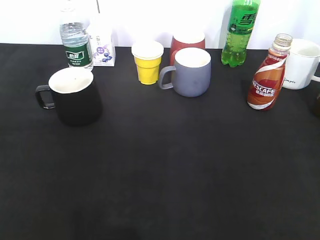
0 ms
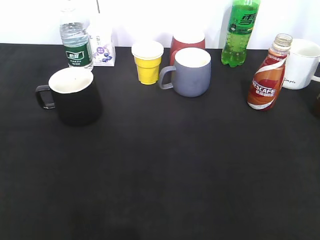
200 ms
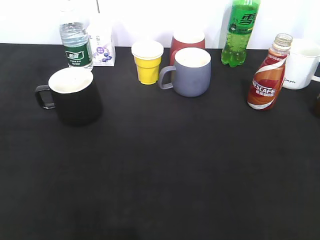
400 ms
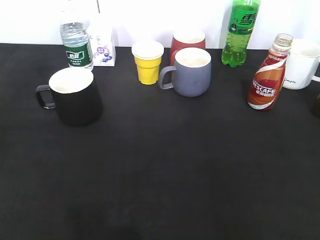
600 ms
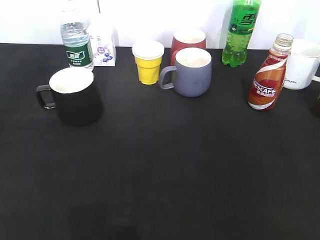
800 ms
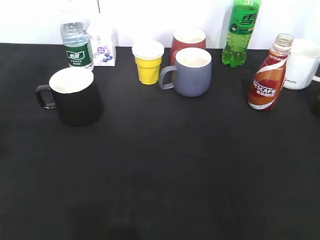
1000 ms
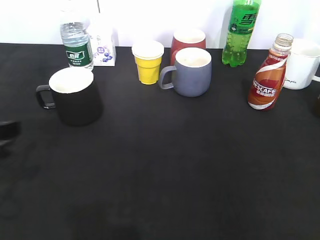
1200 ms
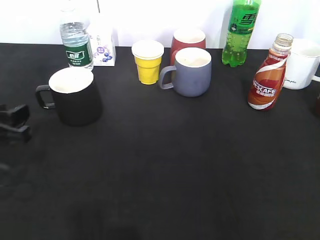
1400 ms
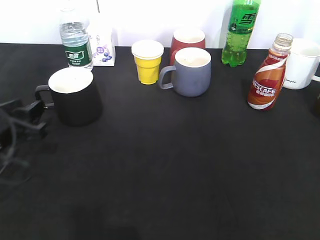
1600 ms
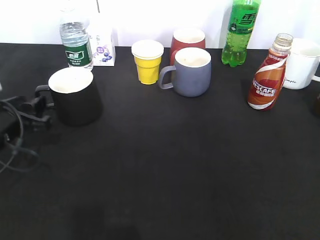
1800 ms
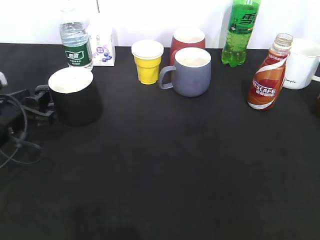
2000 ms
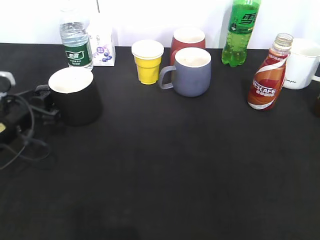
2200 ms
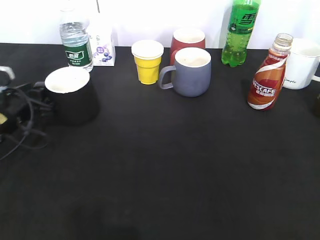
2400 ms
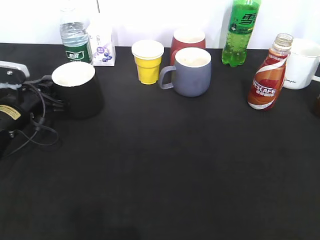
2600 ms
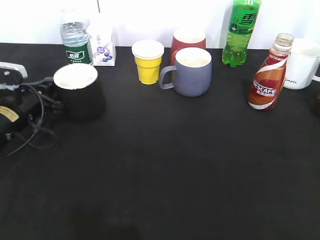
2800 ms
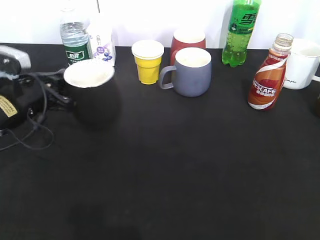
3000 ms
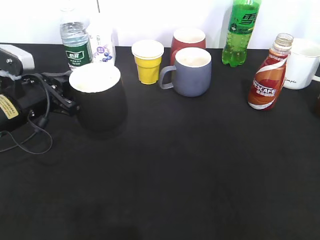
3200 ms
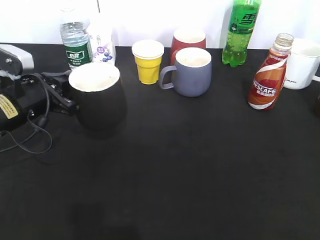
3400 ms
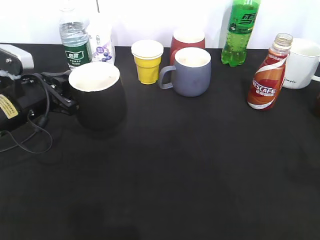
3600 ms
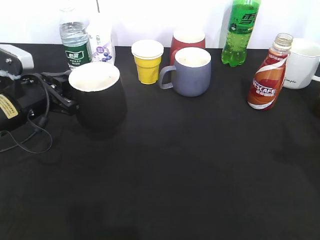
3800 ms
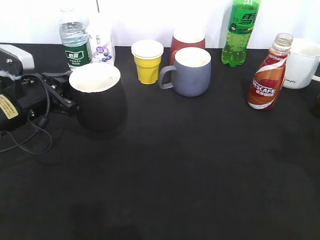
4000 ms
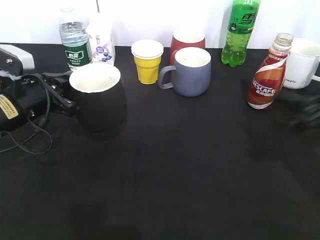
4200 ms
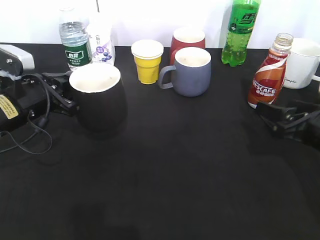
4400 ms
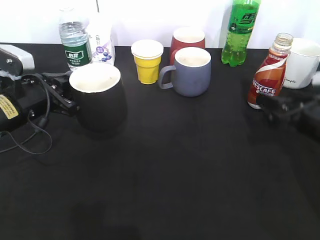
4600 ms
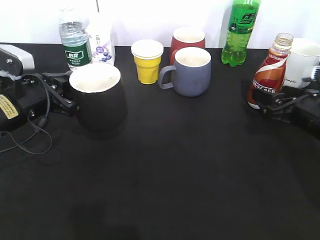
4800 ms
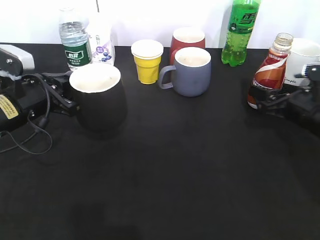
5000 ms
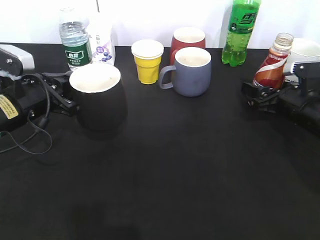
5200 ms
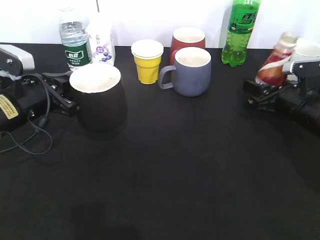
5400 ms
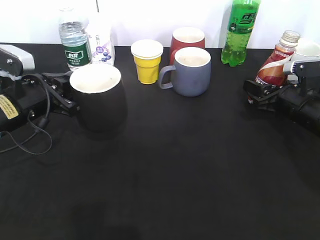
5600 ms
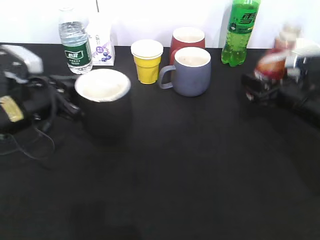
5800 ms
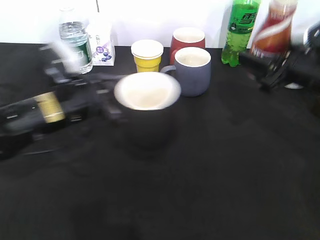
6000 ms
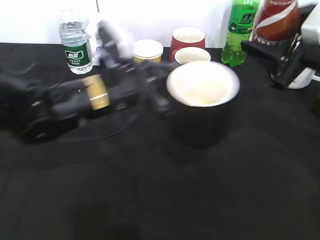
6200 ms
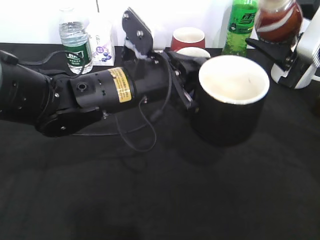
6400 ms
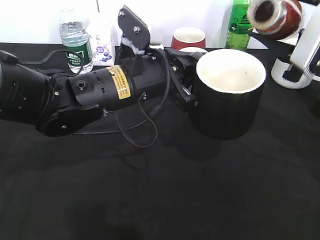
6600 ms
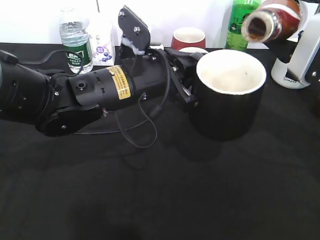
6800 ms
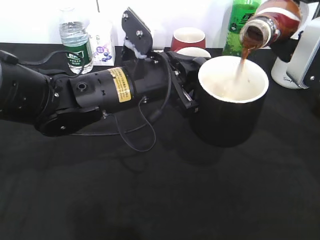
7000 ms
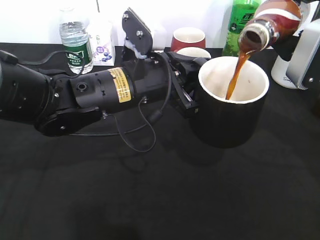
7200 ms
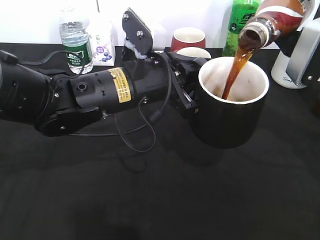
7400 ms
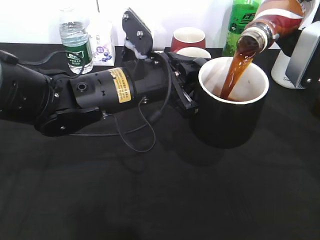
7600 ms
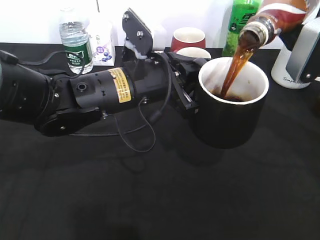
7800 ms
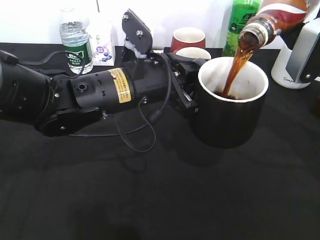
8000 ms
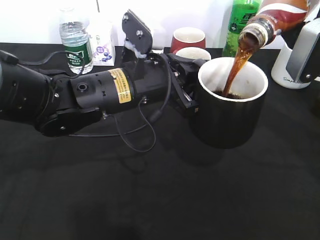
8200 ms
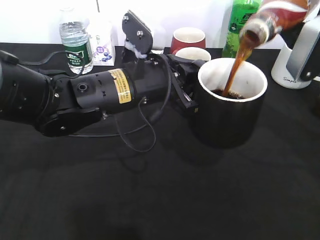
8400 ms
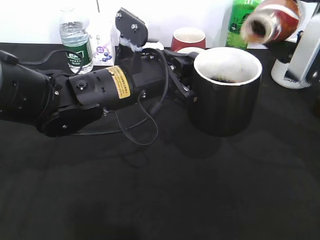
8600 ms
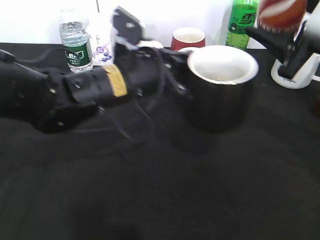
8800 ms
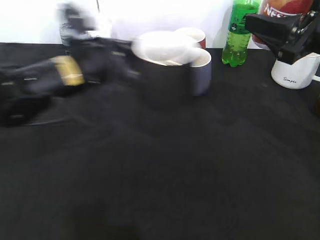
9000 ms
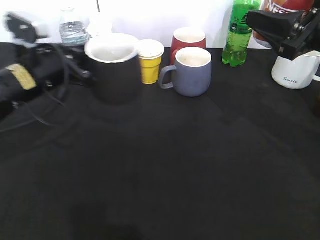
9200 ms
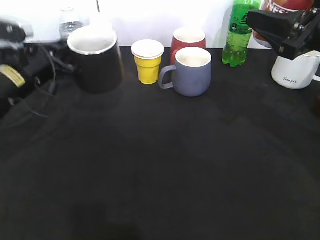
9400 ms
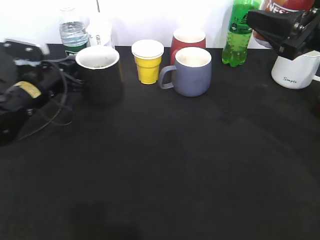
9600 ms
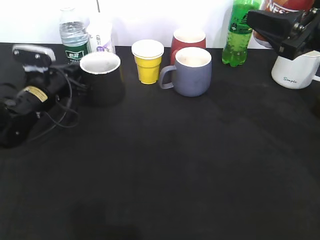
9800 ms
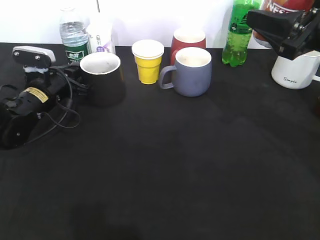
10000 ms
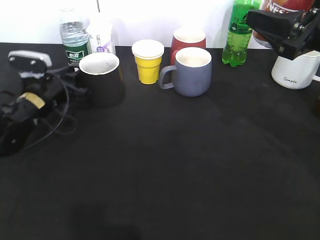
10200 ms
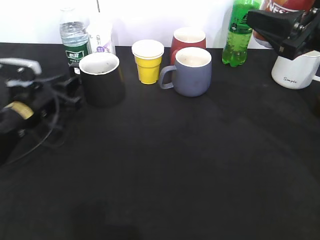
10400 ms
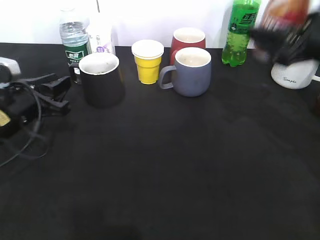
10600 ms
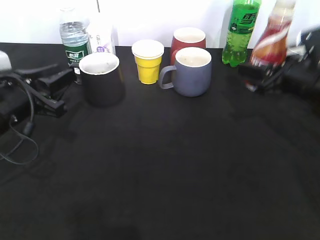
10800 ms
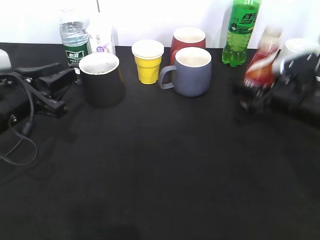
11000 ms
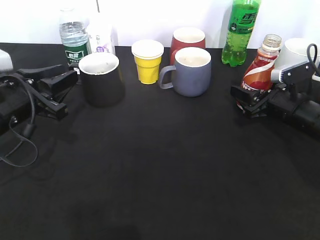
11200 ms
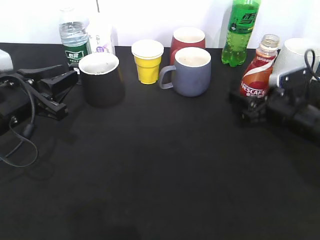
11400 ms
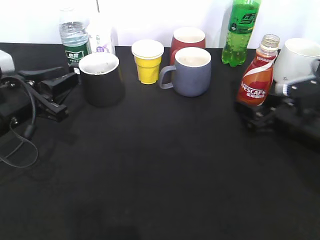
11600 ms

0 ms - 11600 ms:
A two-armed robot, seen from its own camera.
Step, 0 ms - 2400 ms: Grasp the black cup with left gripper.
Step, 2800 ms - 3200 ms: Lift the black cup with left gripper.
Step, 3400 ms - 5200 ms: Grasp the bottle with coffee with right gripper.
Step, 5400 ms - 8800 ms: Pour the coffee from bottle to cup with right gripper.
Step, 9000 ms - 10200 ms: Place the black cup on the table with left gripper.
Step, 10600 ms - 11600 ms: Place the coffee bottle on the table with right gripper.
0 ms - 1400 ms: The left gripper heads forward and downward, covering about 25 cm.
1400 ms - 2800 ms: The left gripper is displaced forward by approximately 10 cm, and closes.
2800 ms - 4400 ms: The left gripper changes place by approximately 5 cm; the right gripper goes roughly 30 cm forward and downward, and opens its fingers.
4400 ms - 5800 ms: The right gripper shifts about 10 cm forward, and closes.
5800 ms - 7200 ms: The right gripper shifts approximately 15 cm upward. Meanwhile the left gripper moves to the right, some 15 cm.
8800 ms - 10200 ms: The left gripper goes roughly 20 cm to the left, downward and forward, and opens its fingers.
10200 ms - 11600 ms: The left gripper heads backward and upward, covering approximately 10 cm; the right gripper moves downward, about 20 cm, and opens.

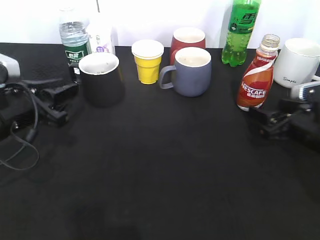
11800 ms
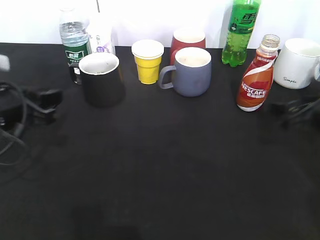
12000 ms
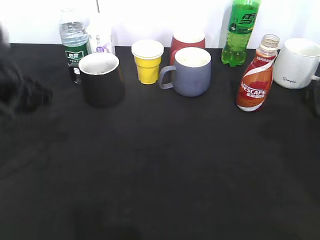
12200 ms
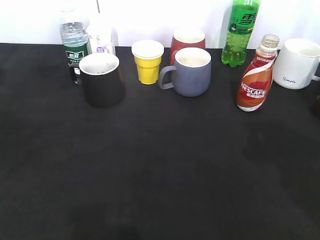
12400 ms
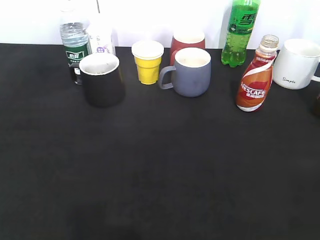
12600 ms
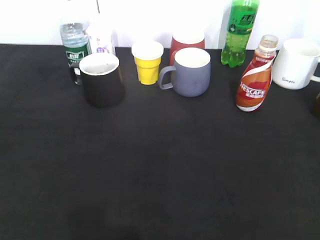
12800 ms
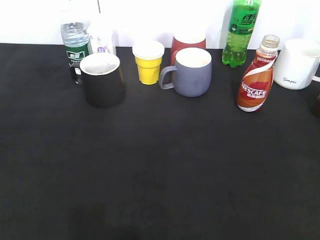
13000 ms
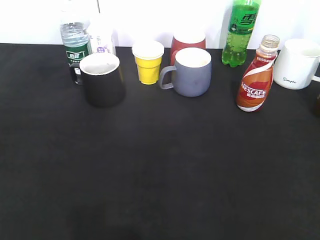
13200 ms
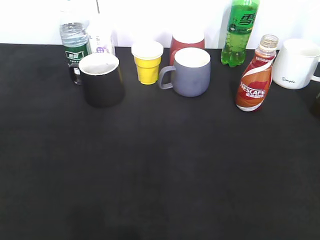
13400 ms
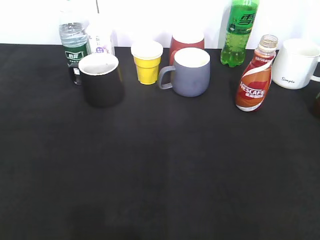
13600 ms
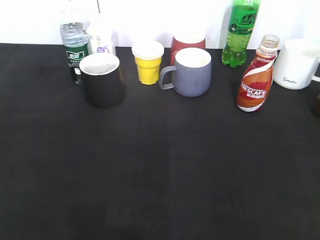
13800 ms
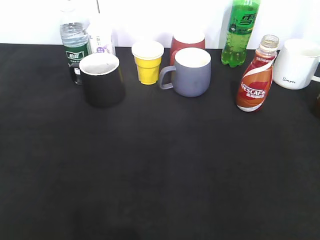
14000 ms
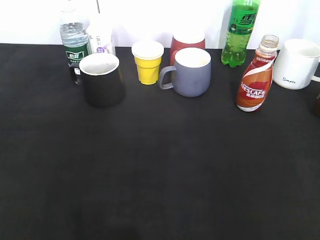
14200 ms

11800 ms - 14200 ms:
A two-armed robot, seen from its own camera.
11800 ms - 13000 ms: Both grippers move backward and upward, roughly 30 cm. The right gripper closes up.

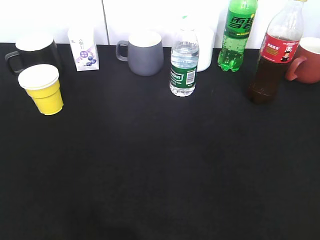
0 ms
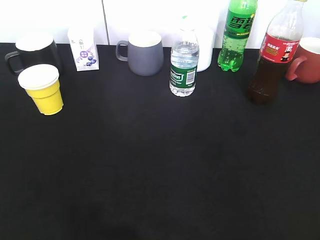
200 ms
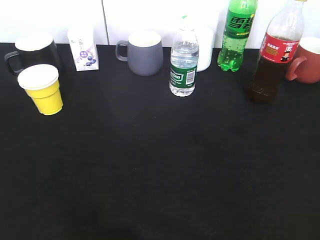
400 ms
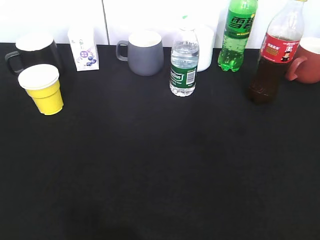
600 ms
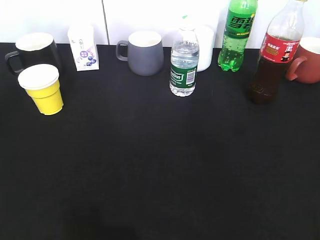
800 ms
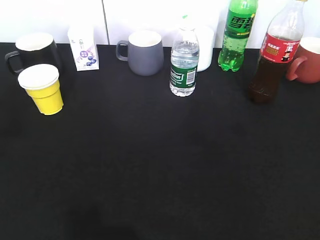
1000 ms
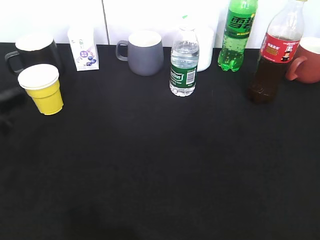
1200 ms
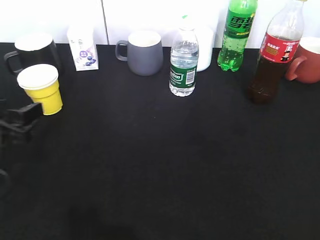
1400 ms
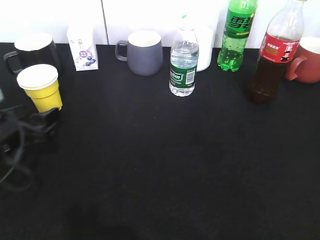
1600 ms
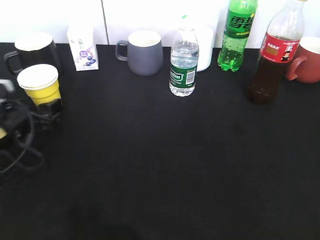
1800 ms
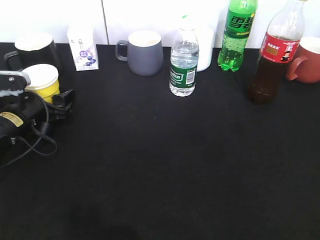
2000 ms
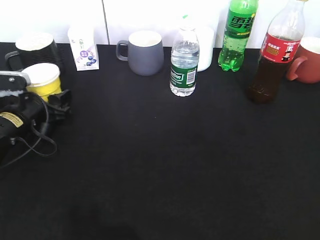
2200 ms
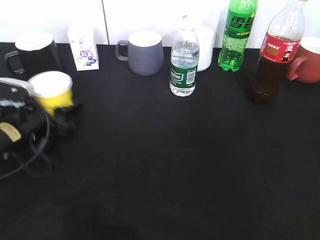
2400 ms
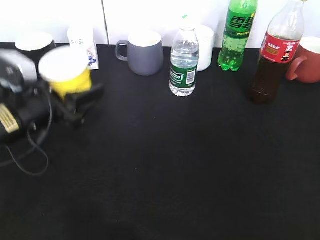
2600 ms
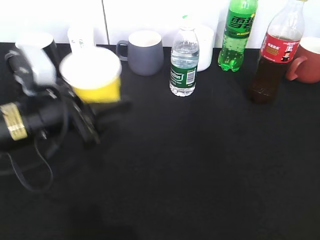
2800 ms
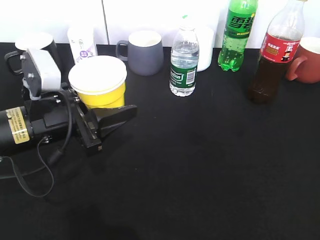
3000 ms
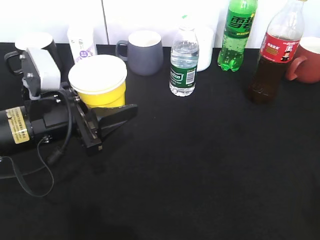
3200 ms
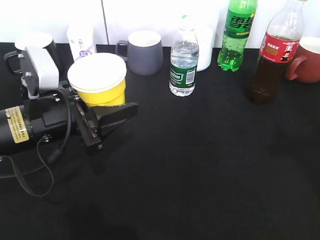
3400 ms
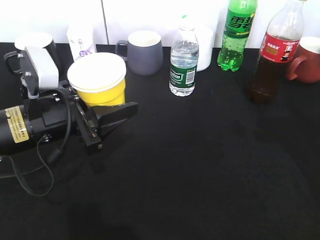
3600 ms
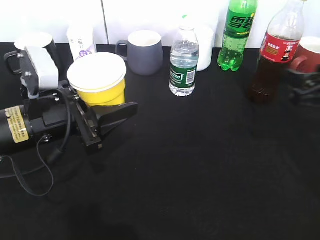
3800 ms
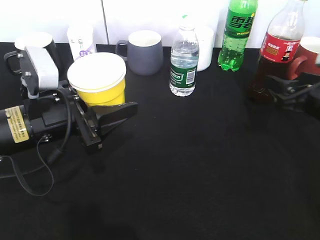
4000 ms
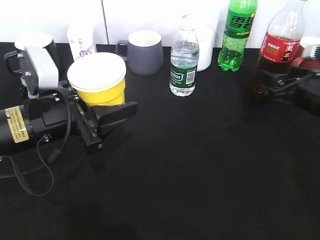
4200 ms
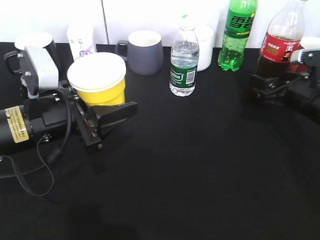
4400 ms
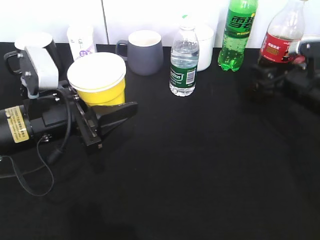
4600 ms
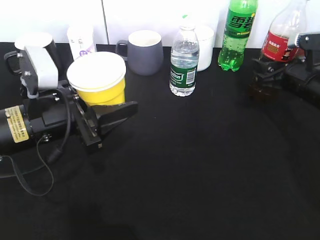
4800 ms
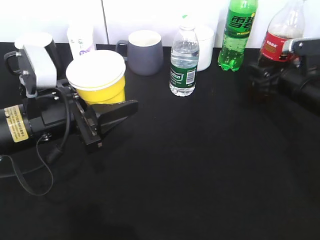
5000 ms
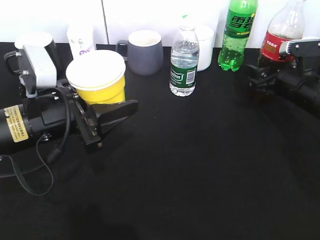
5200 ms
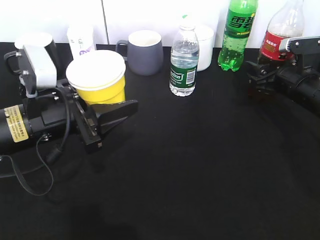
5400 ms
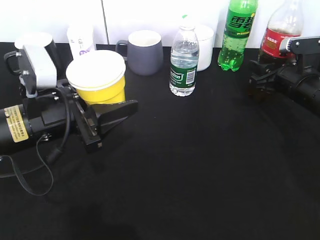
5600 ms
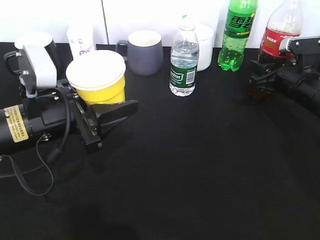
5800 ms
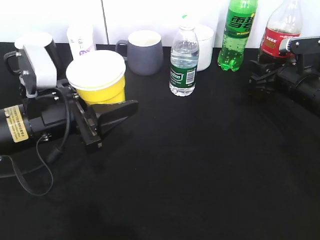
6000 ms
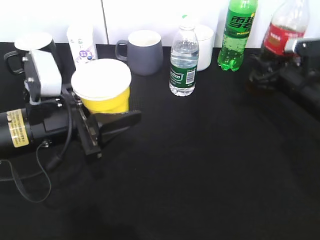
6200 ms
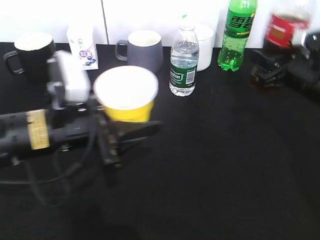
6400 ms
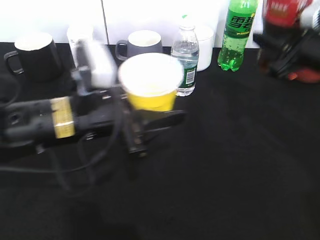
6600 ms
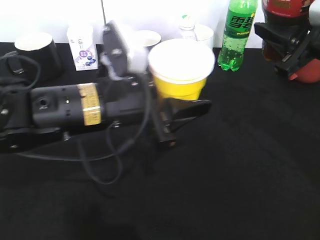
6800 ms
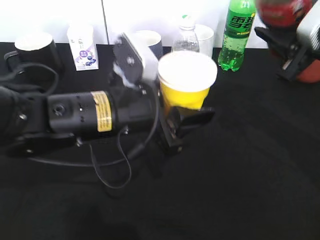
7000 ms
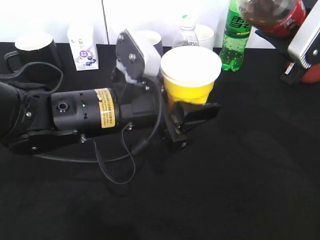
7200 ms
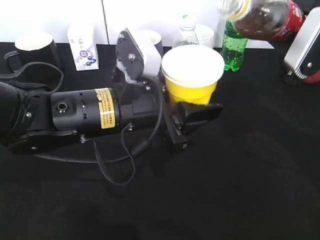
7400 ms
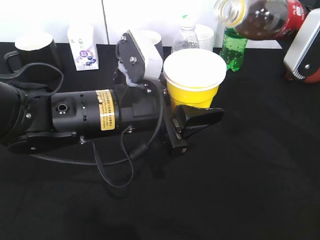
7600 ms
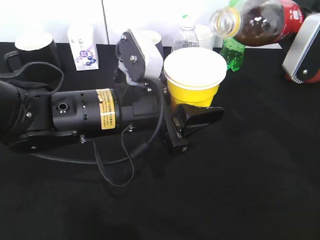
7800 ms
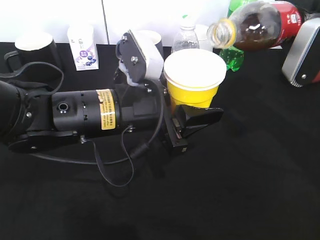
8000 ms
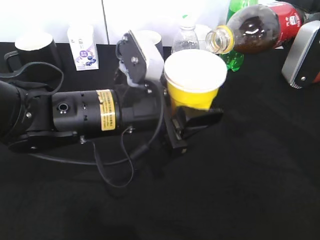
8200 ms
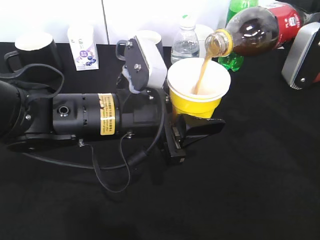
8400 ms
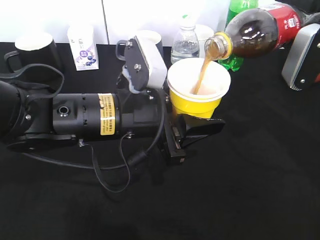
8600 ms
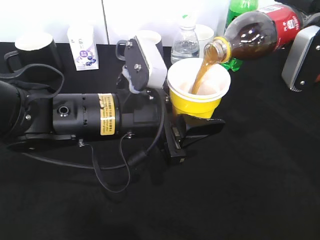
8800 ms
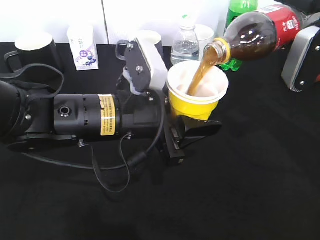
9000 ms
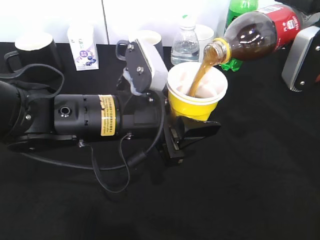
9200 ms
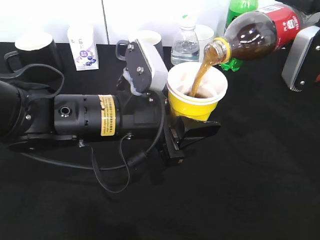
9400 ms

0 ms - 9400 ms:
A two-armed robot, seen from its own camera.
Step, 0 ms - 2200 ms: Grasp the yellow paper cup with left gripper.
Step, 2400 ms - 3200 ms: Lift the yellow paper cup with left gripper.
Step, 3400 ms - 6200 ms: Grasp the bottle with cola with right gripper.
0 ms - 1600 ms: The left gripper moves forward and downward, about 30 cm, and opens up.
1600 ms - 3200 ms: The right gripper changes place by about 5 cm. The left gripper moves to the right and upward, about 10 cm, and closes its fingers.
3200 ms - 4800 ms: The right gripper moves forward and downward, approximately 35 cm.
4800 ms - 6200 ms: The right gripper closes.
6200 ms - 7800 ms: The left gripper shifts approximately 10 cm to the right. The right gripper moves upward and backward, about 15 cm.
7800 ms - 9400 ms: The grippers move only a little.
